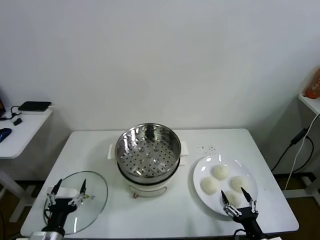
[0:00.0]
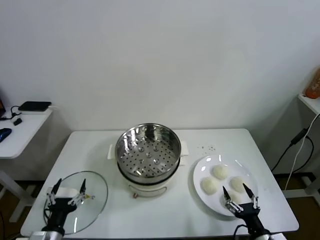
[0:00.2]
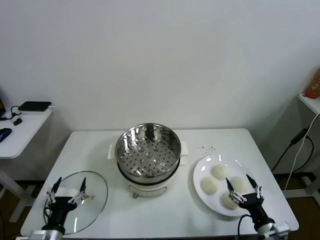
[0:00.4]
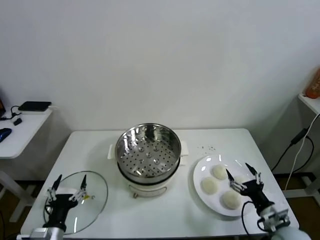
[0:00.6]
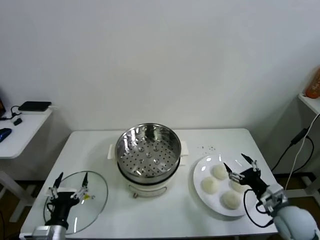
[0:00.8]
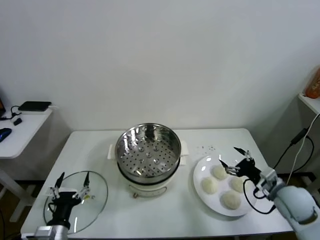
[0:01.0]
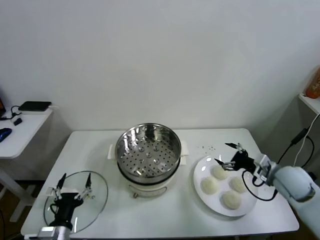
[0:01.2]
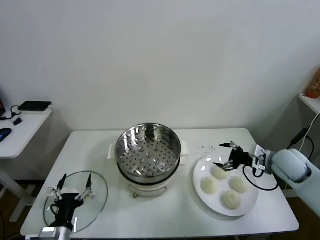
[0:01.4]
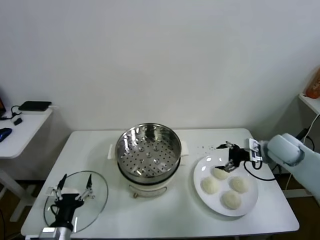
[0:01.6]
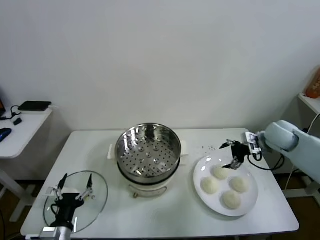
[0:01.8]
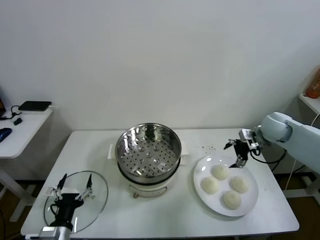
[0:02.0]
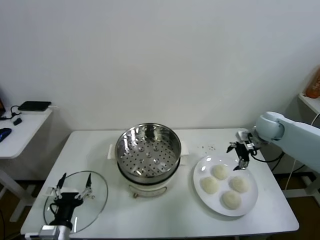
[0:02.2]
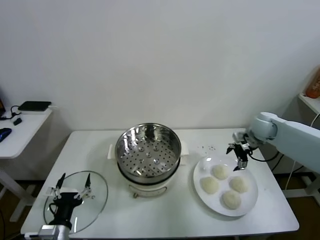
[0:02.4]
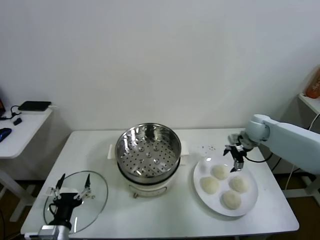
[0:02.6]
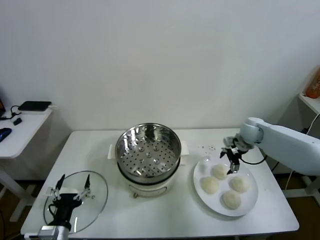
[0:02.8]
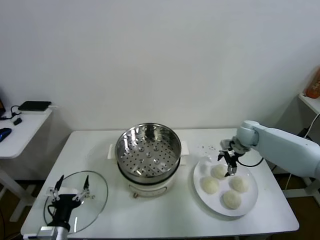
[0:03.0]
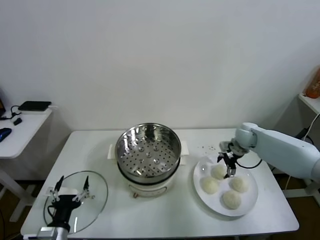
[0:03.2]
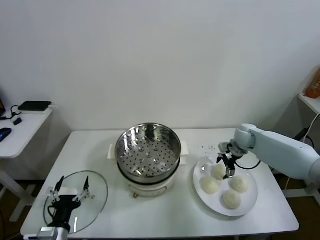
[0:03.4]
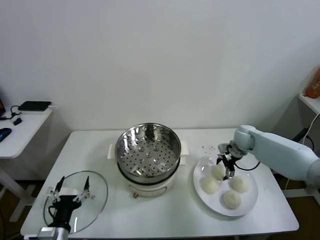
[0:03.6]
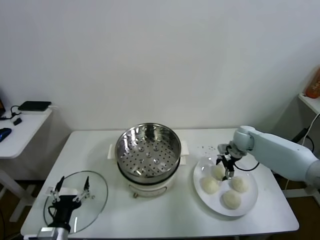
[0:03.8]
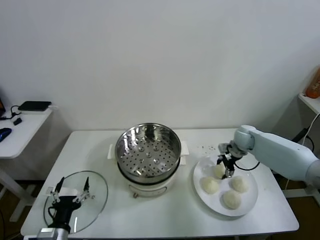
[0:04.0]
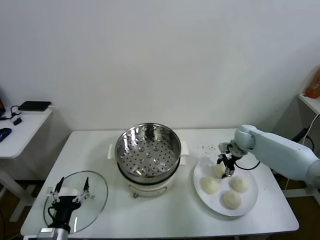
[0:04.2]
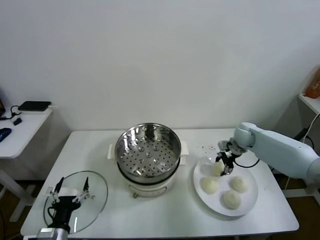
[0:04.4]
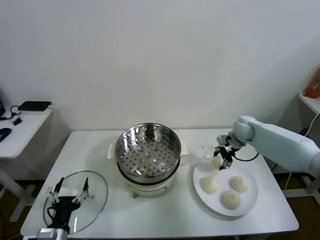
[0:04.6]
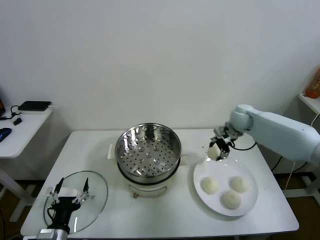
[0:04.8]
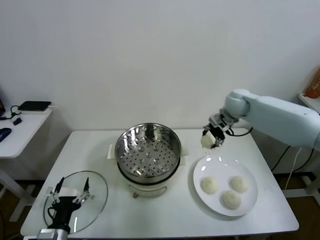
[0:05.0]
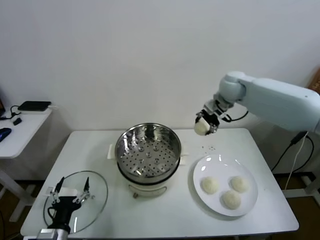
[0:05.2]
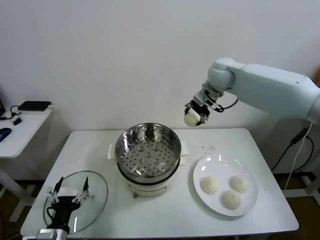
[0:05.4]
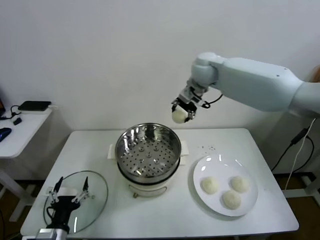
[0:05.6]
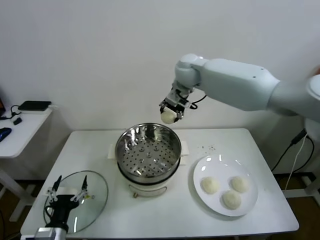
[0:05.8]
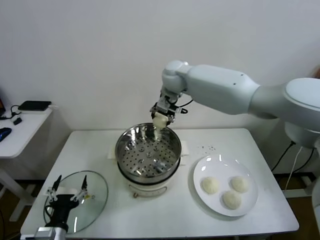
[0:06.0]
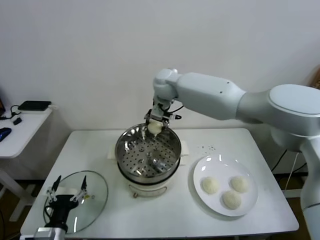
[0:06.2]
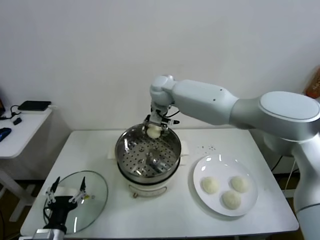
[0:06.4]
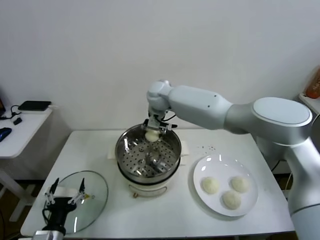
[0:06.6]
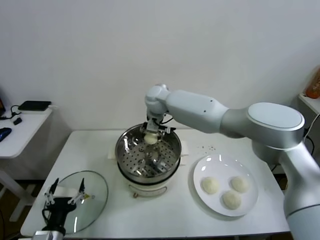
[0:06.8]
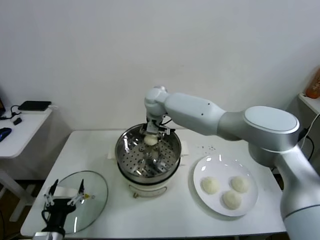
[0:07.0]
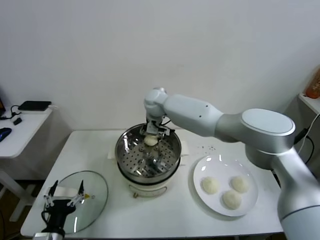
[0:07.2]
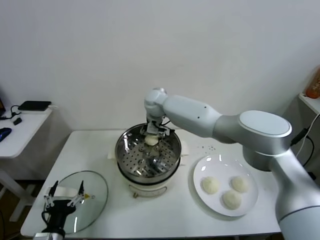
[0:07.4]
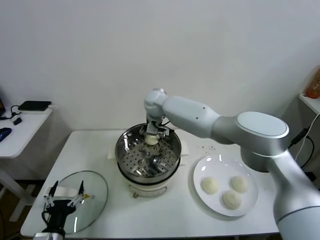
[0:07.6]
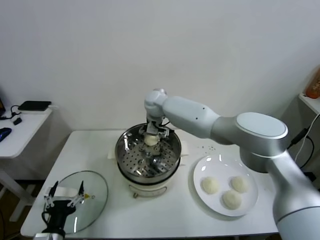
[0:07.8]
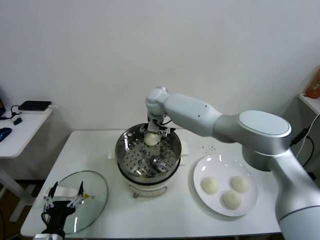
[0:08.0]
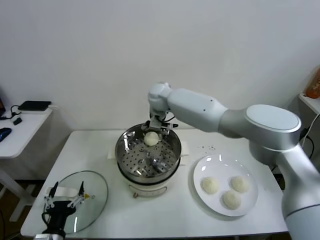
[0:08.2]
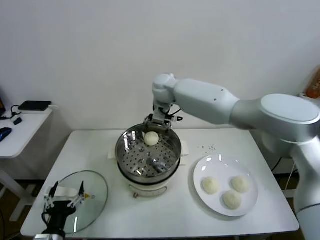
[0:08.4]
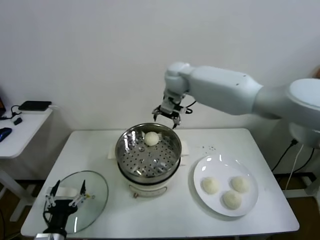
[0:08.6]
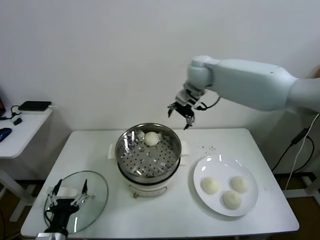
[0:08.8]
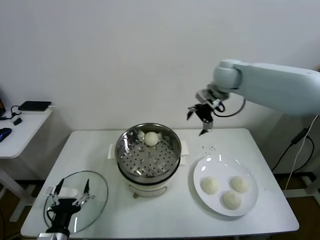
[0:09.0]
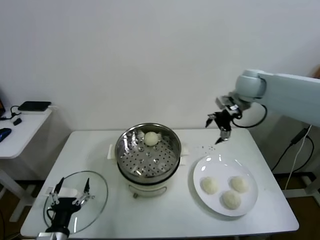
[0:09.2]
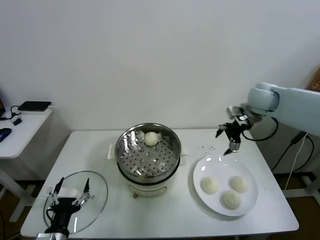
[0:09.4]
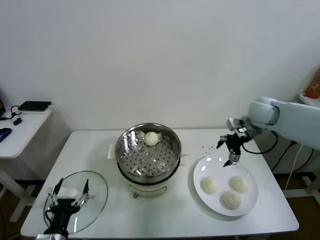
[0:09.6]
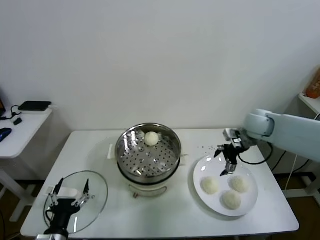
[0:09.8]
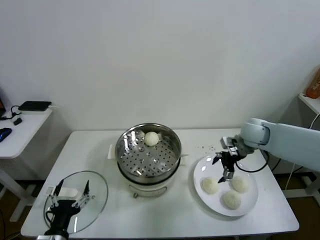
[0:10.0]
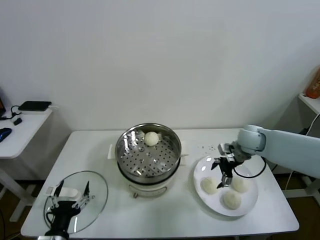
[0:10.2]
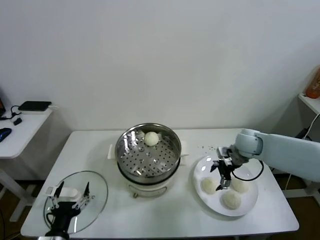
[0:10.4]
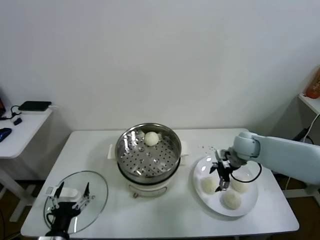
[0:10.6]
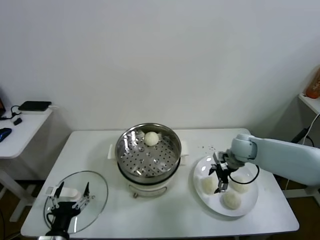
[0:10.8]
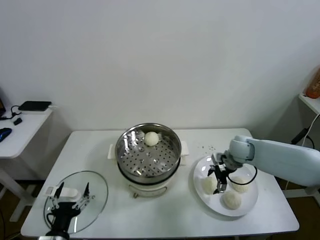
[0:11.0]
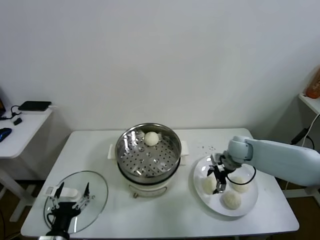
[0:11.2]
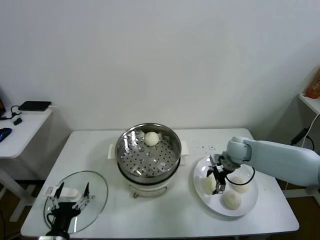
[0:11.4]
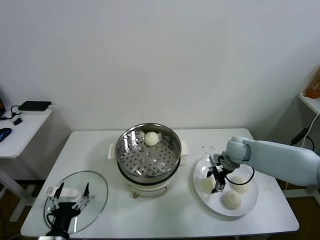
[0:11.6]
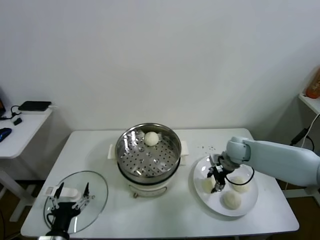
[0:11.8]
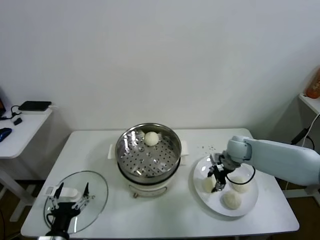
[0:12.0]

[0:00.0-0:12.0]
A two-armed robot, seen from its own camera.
Task of the whole recording: take steamed baozi put them in steamer.
Step, 0.0 to 4.2 s: Grasp the baozi in the plate with right gripper.
Step, 4.4 to 7.8 s: Place the baozi on the steamer with right gripper.
Step, 8.0 to 11.6 s: Grasp the baozi in the plate with right gripper.
1.6 to 3.0 s: The right gripper shifts some 15 cm forward, downward and to the left.
3.0 to 4.4 s: The right gripper closes up.
4.4 to 6.0 s: The right gripper heads to the left and upward, covering approximately 35 cm.
6.0 to 7.6 s: The right gripper heads downward and to the left, covering some 10 cm, and opens up.
7.6 to 9.0 s: The right gripper heads to the right and upward, covering about 30 cm.
9.0 to 10.4 s: The right gripper shifts approximately 20 cm downward.
10.4 to 12.0 s: The right gripper closes.

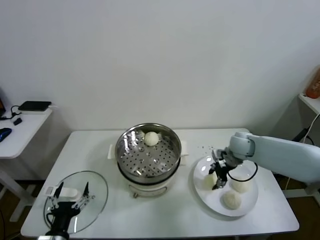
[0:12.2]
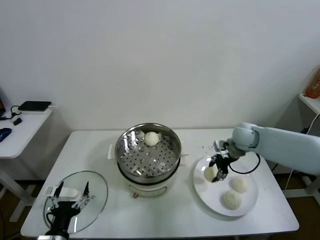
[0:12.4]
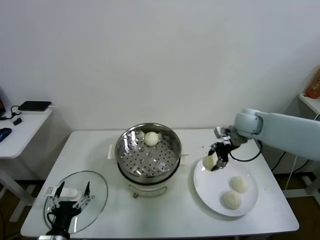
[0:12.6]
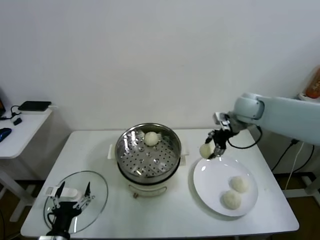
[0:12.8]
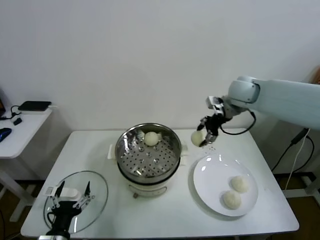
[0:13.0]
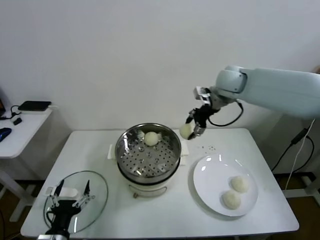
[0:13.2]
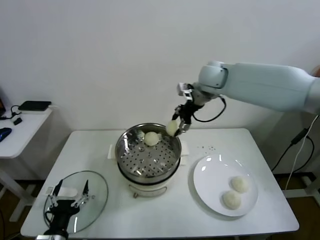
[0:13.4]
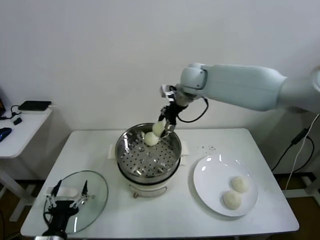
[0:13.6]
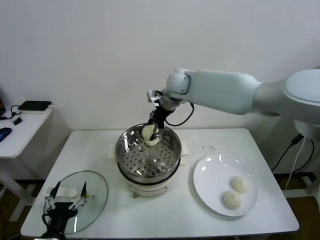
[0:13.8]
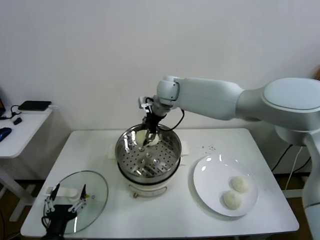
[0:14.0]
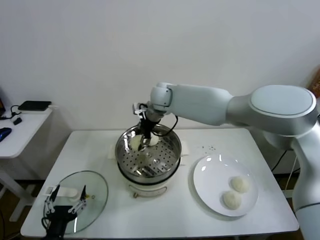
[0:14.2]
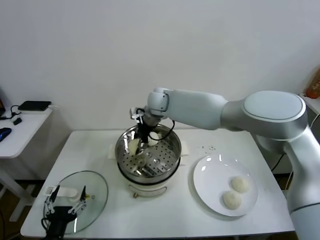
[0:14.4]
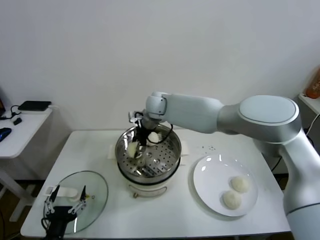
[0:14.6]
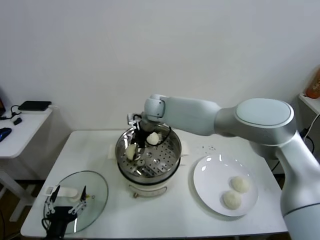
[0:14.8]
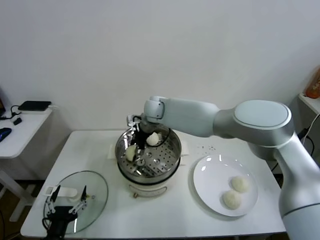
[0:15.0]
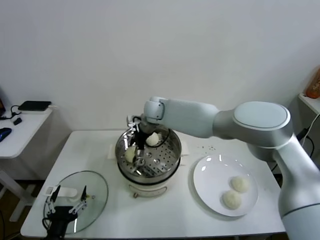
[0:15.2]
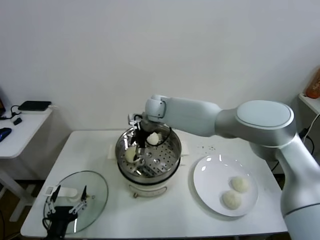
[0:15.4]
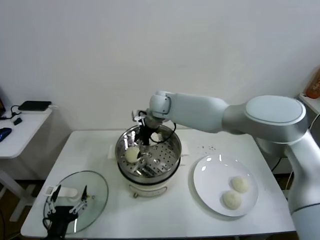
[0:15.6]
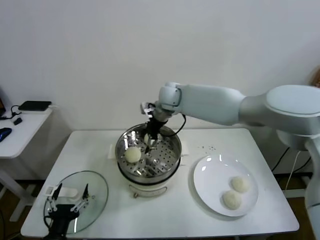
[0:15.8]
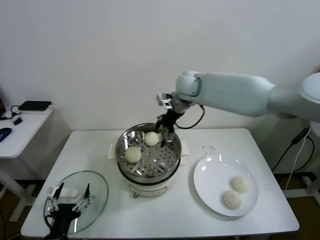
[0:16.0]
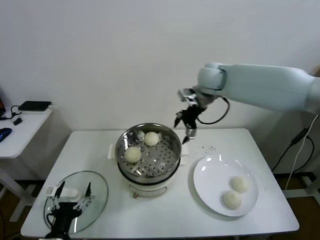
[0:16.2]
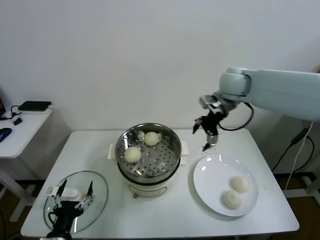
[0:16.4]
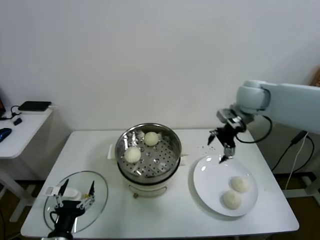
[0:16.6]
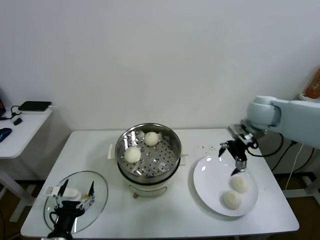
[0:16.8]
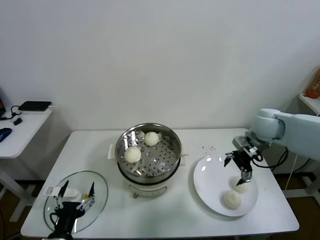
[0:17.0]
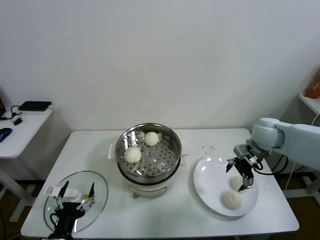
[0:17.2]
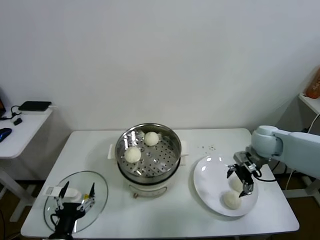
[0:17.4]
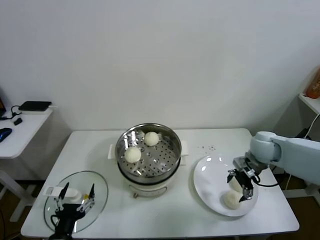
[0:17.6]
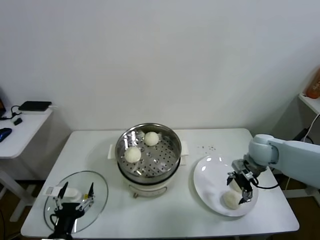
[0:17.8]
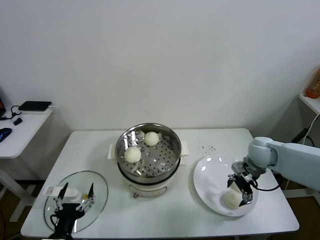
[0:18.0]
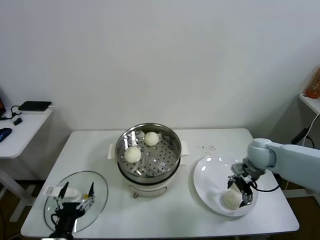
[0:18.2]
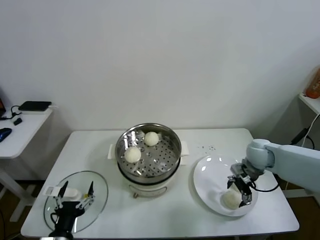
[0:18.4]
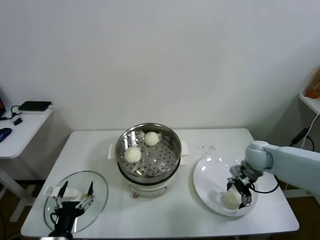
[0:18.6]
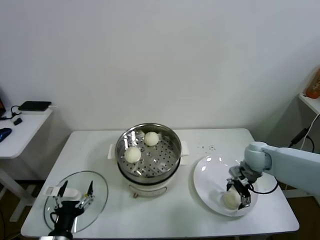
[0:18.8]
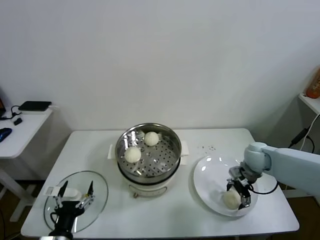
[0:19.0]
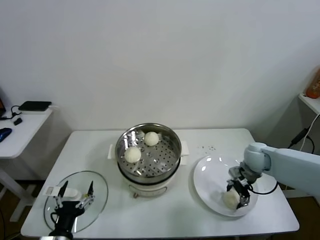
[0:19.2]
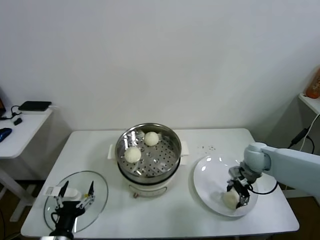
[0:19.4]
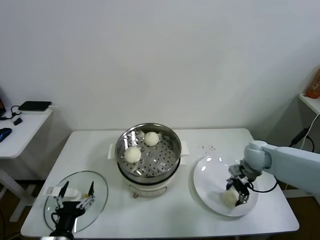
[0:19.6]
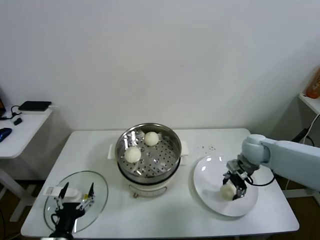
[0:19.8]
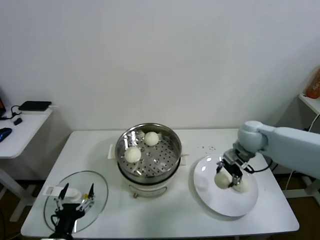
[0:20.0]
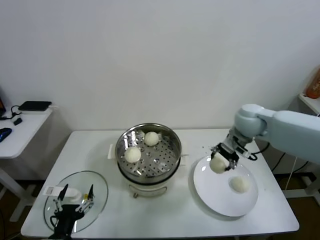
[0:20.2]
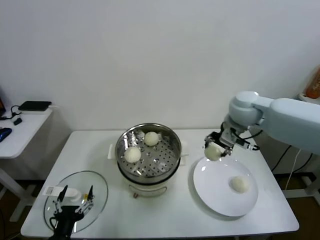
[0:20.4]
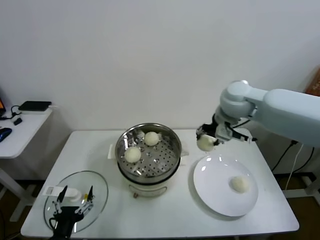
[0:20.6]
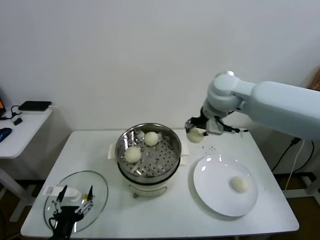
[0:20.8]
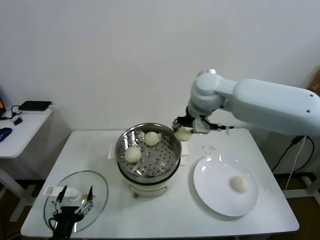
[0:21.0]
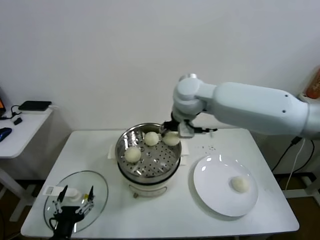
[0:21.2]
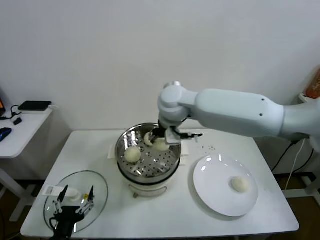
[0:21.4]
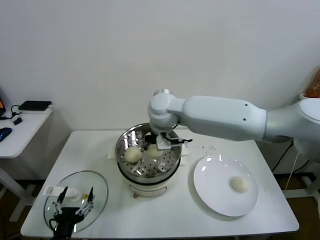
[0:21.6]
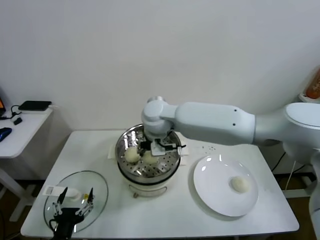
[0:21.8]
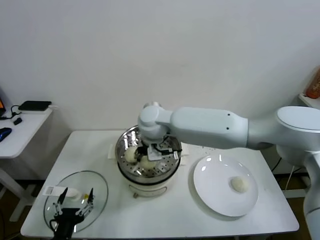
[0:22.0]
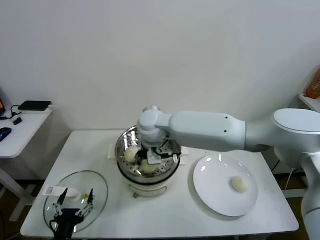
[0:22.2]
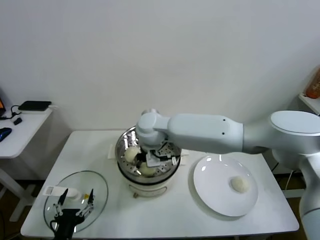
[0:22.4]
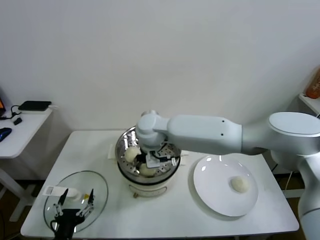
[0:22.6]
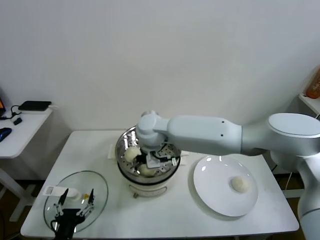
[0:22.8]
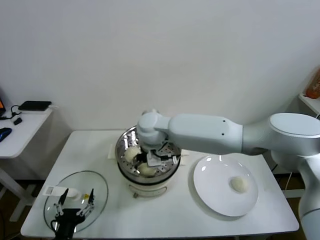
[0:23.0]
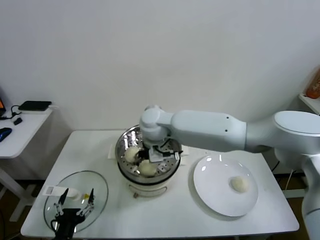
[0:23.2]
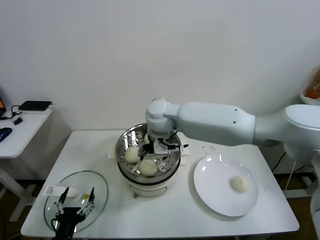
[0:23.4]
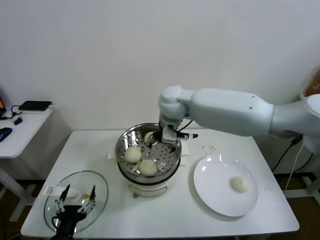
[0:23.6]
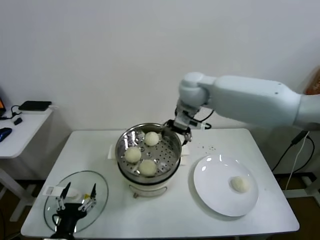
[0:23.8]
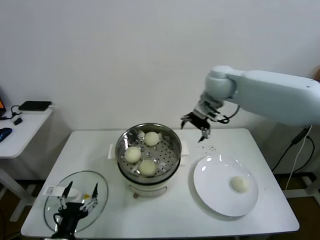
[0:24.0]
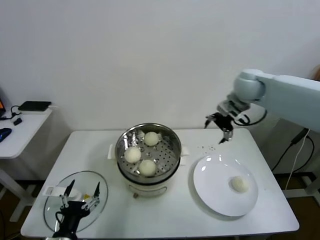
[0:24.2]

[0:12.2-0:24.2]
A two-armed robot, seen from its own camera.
Task of the whole recording: take steamed baozi put them in steamer.
Step, 12.2 to 15.4 s: Place the baozi on the steamer with right gripper.
Step, 15.6 to 19.4 s: Grasp the baozi in the plate with right gripper.
Step, 19.6 to 23.0 s: Place the baozi on the steamer with right gripper.
12.2 to 13.8 s: The right gripper heads to the left and upward, covering approximately 30 cm.
13.8 to 15.2 s: The right gripper heads downward and to the left, covering approximately 10 cm, and opens.
15.2 to 16.6 s: The right gripper goes about 30 cm to the right.
16.6 to 18.2 s: The right gripper is displaced downward by about 20 cm.
18.2 to 19.8 s: The right gripper closes.
19.8 to 21.2 s: The right gripper travels to the left and upward by roughly 35 cm.
21.2 to 22.6 s: The right gripper heads to the left and downward, covering some 15 cm.
22.6 to 24.2 s: The right gripper heads to the right, covering about 30 cm, and opens up.
